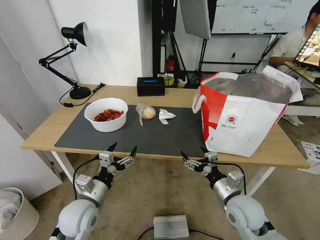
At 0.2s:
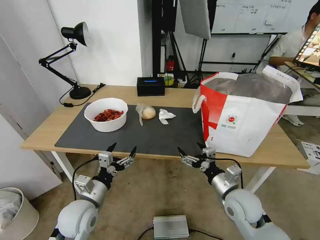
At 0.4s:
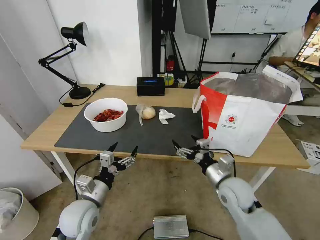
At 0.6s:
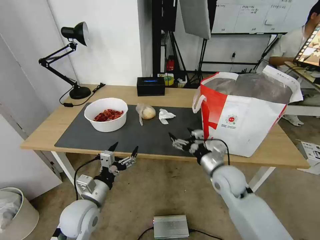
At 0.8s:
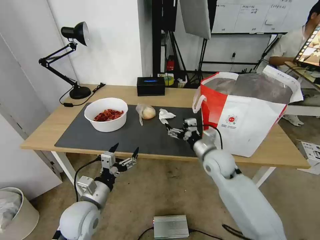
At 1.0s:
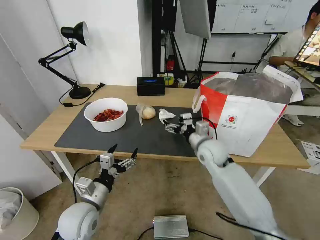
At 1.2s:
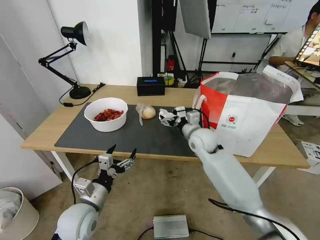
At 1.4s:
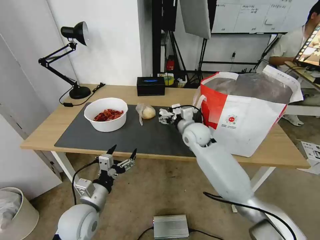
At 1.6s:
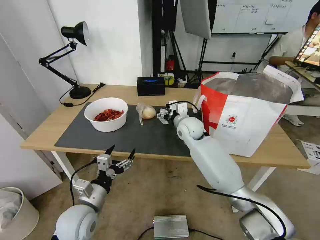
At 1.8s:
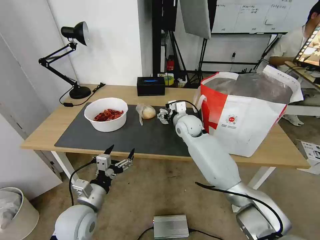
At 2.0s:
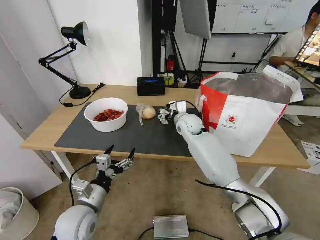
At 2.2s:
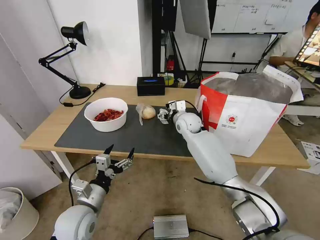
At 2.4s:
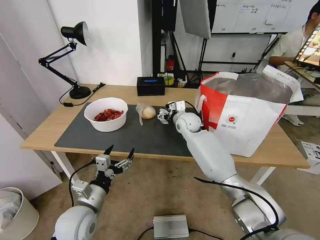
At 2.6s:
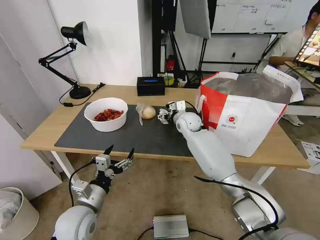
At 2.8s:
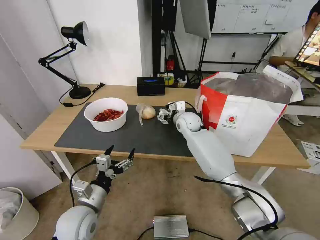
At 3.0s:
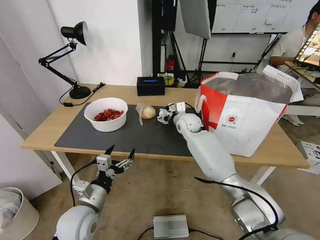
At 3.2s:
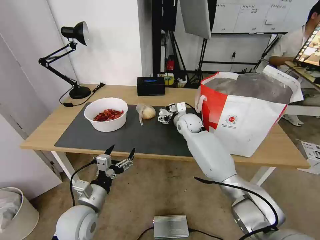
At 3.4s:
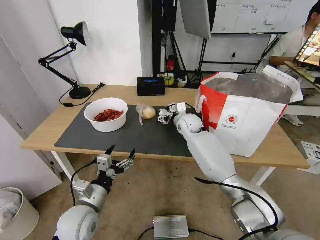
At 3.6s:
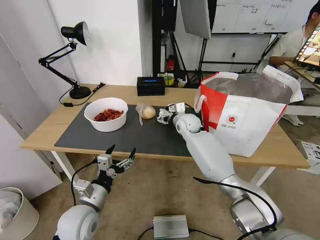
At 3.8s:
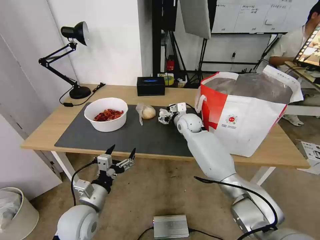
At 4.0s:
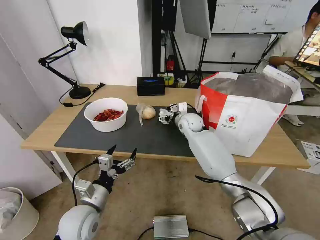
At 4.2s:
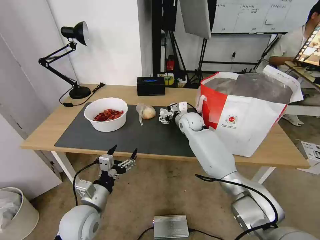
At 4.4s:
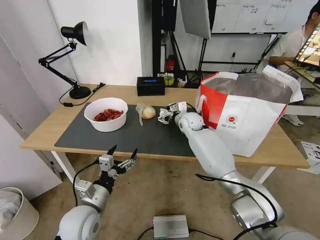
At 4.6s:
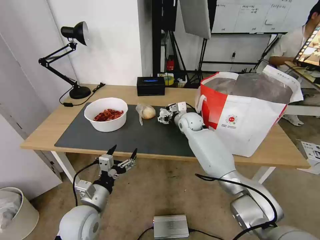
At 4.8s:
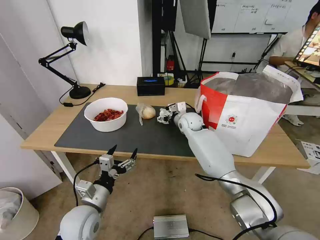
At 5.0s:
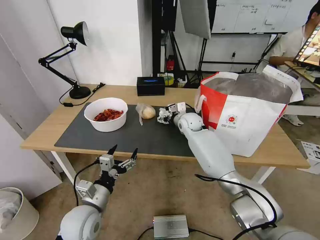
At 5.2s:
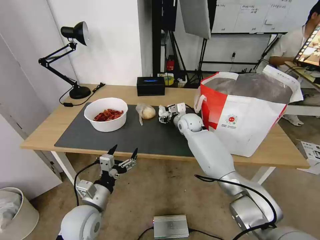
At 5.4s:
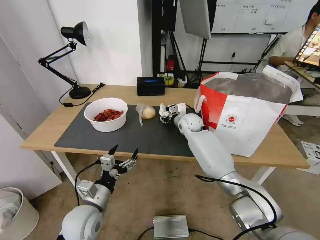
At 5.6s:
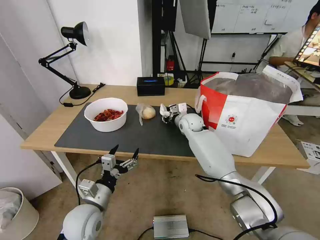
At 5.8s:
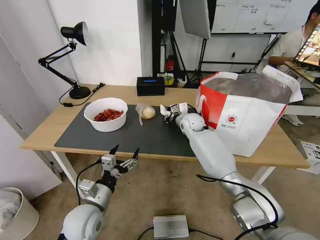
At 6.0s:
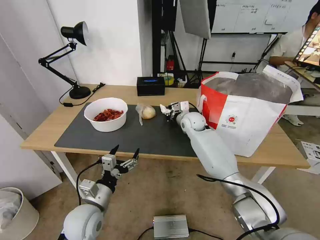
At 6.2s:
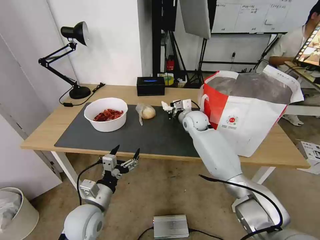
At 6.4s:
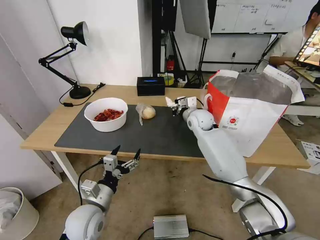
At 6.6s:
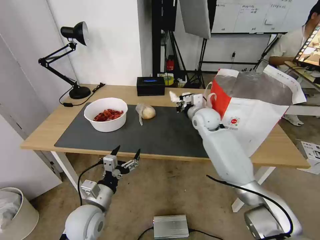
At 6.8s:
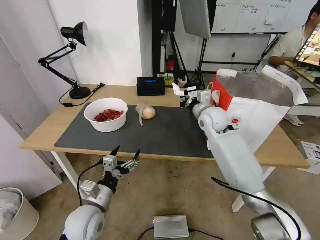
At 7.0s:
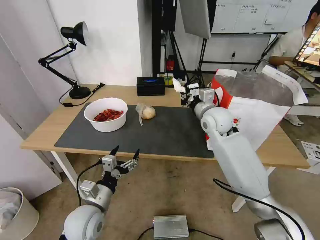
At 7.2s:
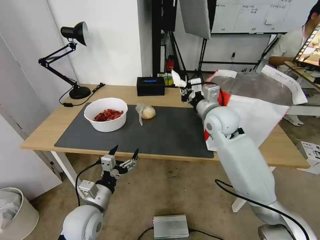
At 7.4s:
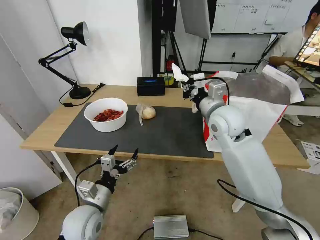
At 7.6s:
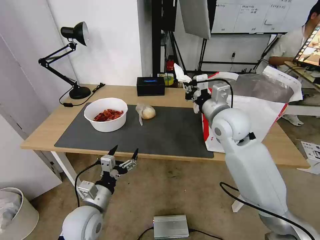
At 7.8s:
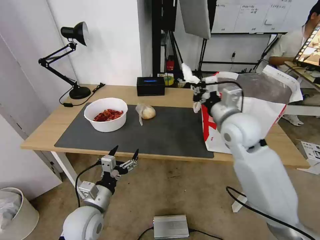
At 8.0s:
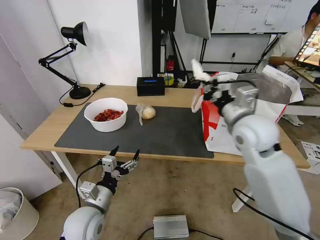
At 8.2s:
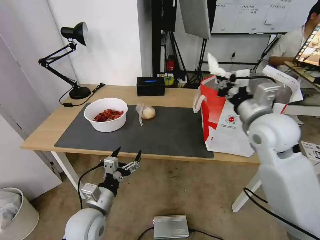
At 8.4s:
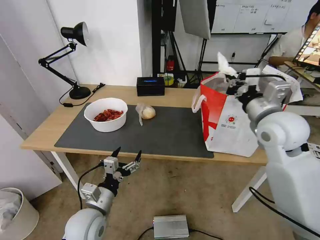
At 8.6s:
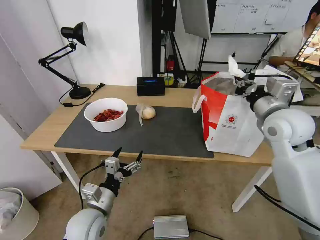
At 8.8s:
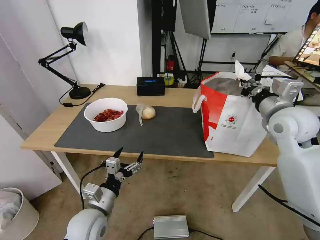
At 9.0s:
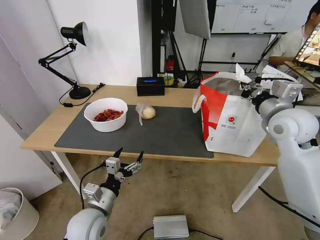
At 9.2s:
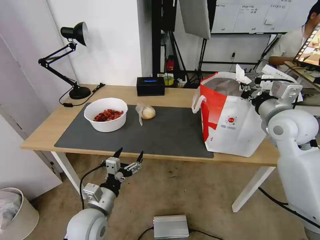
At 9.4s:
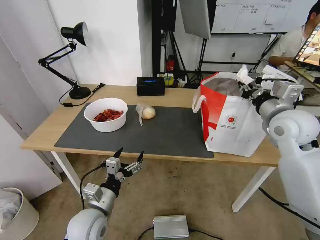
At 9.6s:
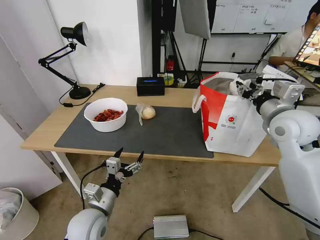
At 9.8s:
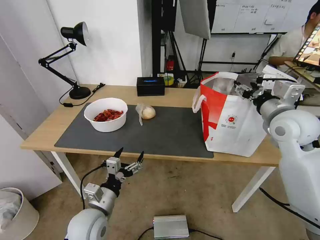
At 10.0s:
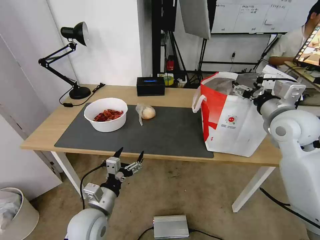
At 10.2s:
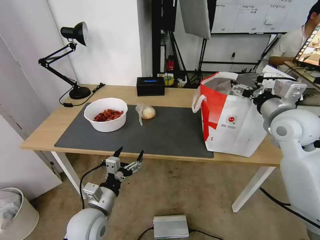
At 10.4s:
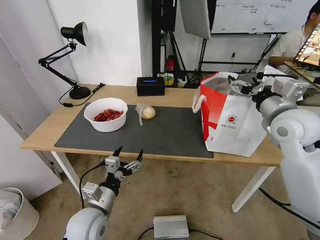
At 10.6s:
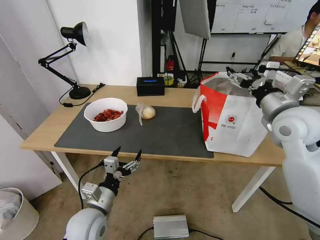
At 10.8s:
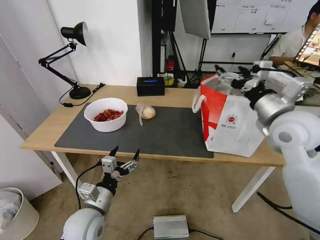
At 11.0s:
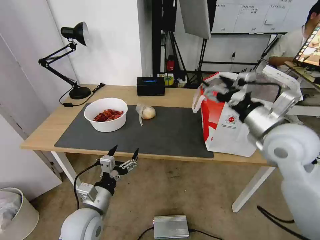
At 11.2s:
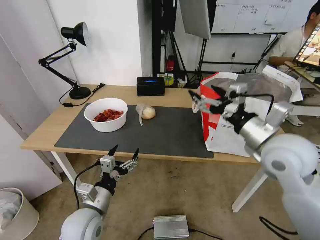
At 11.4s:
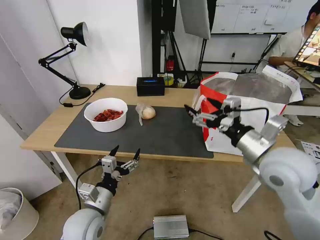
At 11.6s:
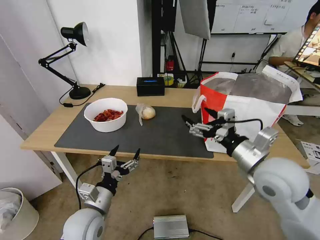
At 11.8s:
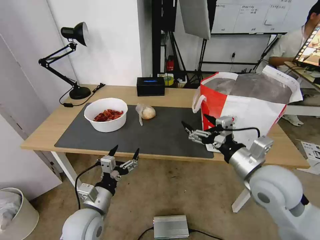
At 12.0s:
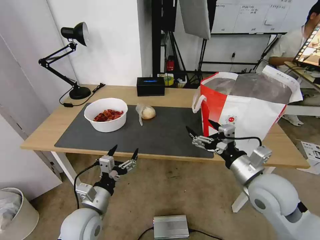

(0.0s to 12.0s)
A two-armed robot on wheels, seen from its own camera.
Task of the whole recording: Pick up the trash from the table and place it into the takeout bag.
0.0s - 1.6s: The right gripper moves forward and to the left, approximately 30 cm.
1.6s - 3.0s: The right gripper moves approximately 5 cm.
3.0s - 4.4s: There are only small adjustments of the grippers.
4.4s - 6.0s: The right gripper closes up.
6.0s - 7.6s: The right gripper heads backward and upward, covering roughly 20 cm.
7.6s - 9.0s: The right gripper is displaced to the right by approximately 15 cm.
9.0s - 10.4s: The right gripper opens its fingers.
10.4s - 12.0s: The right gripper goes roughly 20 cm backward, downward and to the left.

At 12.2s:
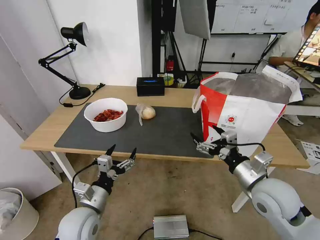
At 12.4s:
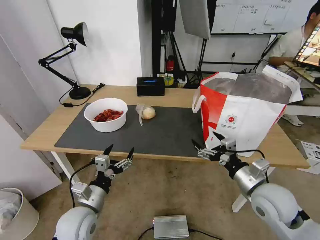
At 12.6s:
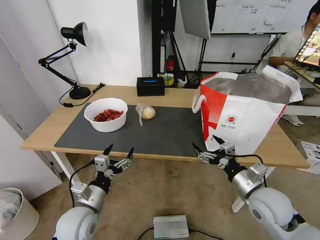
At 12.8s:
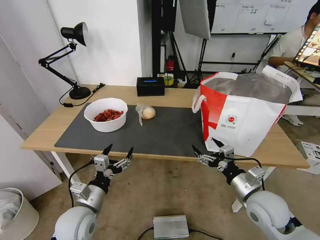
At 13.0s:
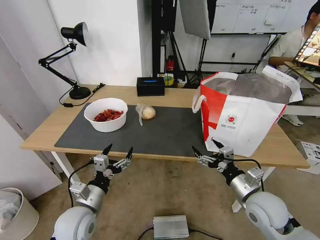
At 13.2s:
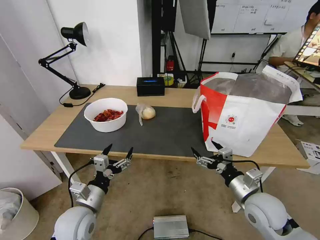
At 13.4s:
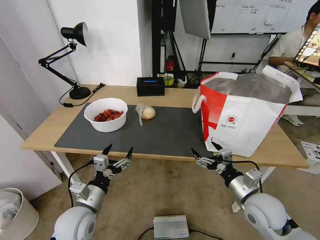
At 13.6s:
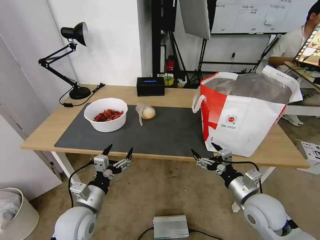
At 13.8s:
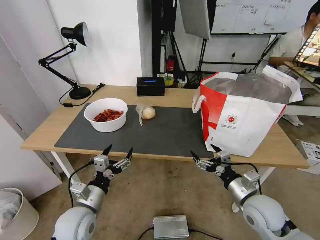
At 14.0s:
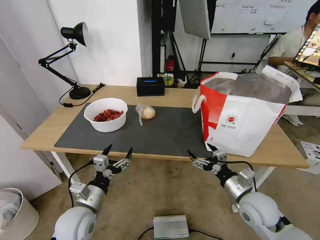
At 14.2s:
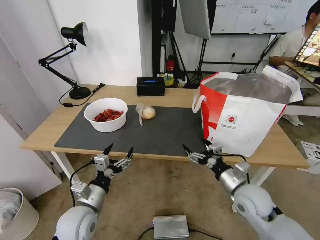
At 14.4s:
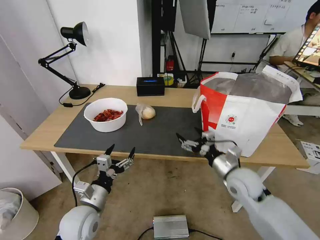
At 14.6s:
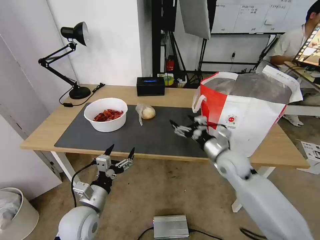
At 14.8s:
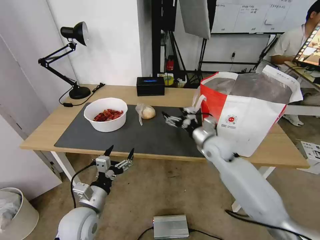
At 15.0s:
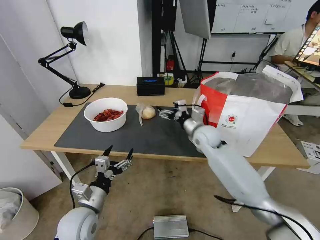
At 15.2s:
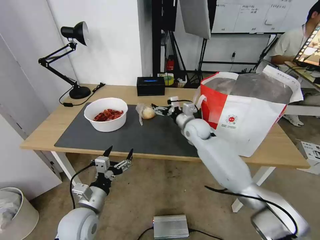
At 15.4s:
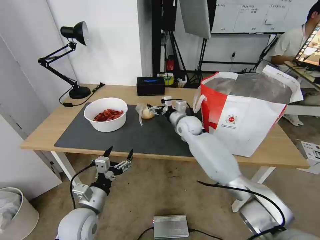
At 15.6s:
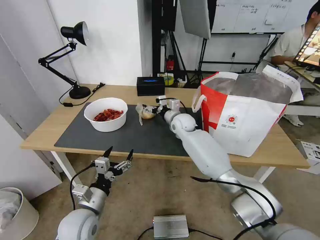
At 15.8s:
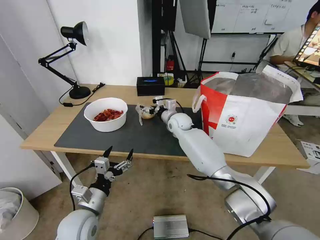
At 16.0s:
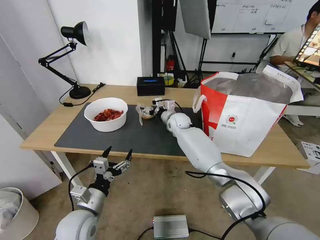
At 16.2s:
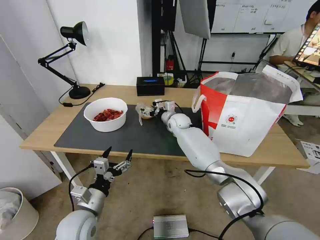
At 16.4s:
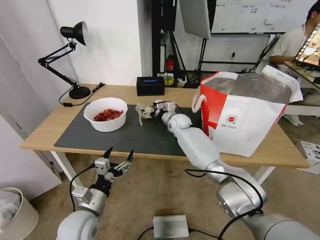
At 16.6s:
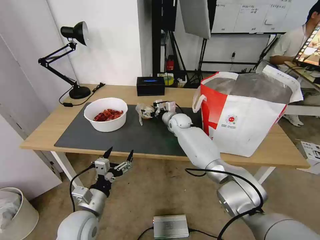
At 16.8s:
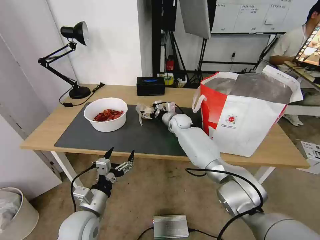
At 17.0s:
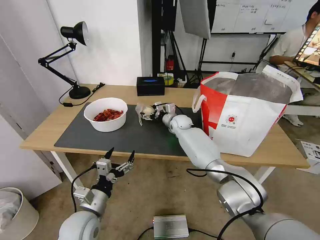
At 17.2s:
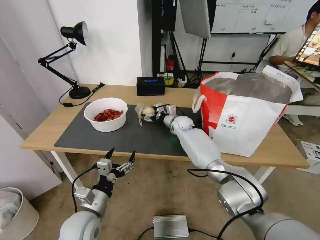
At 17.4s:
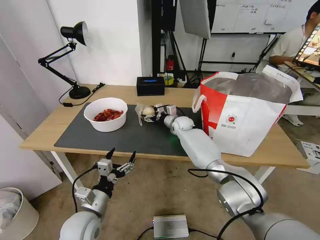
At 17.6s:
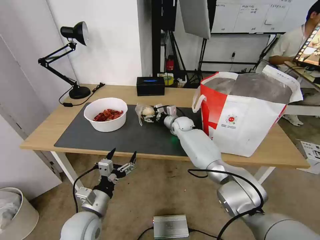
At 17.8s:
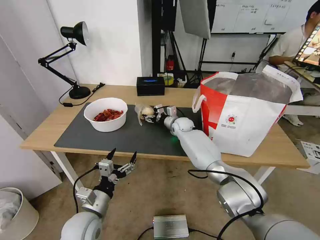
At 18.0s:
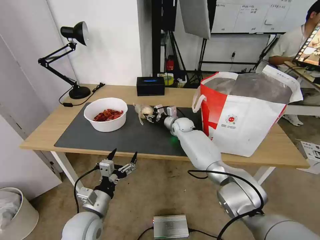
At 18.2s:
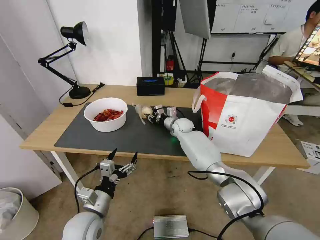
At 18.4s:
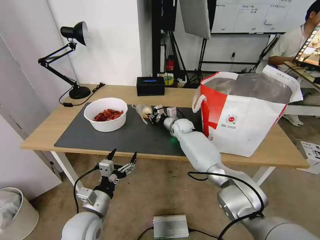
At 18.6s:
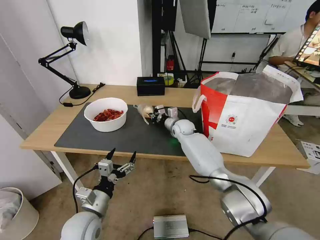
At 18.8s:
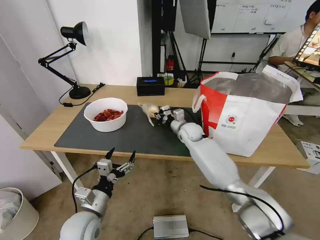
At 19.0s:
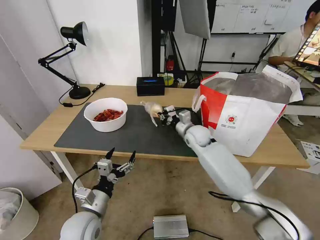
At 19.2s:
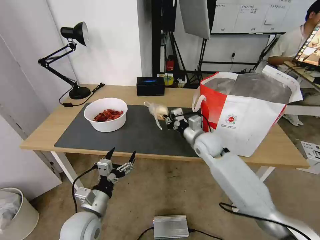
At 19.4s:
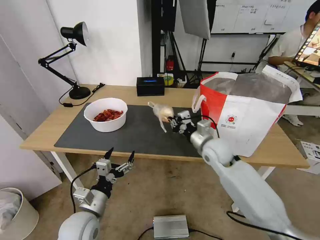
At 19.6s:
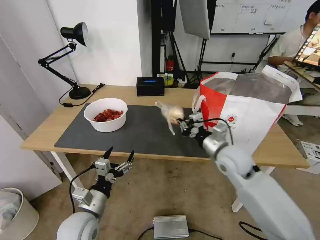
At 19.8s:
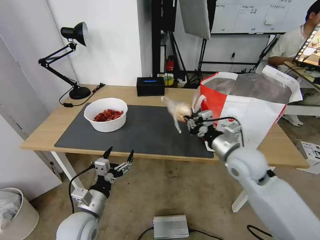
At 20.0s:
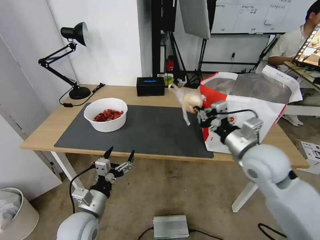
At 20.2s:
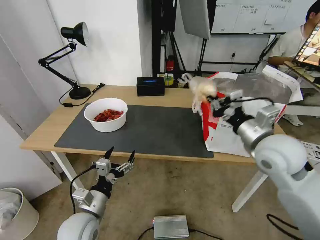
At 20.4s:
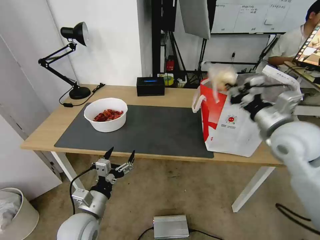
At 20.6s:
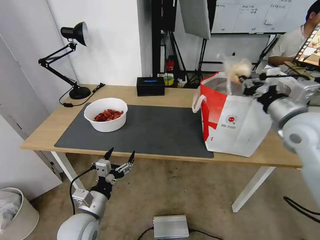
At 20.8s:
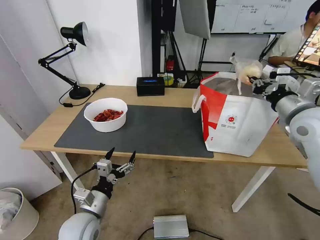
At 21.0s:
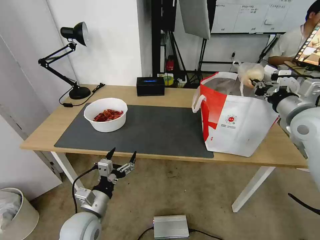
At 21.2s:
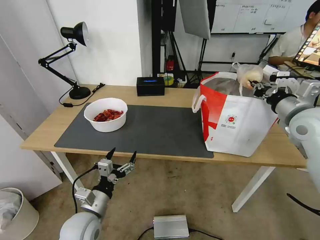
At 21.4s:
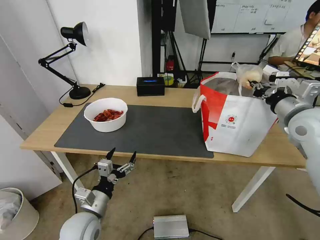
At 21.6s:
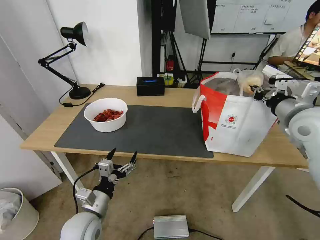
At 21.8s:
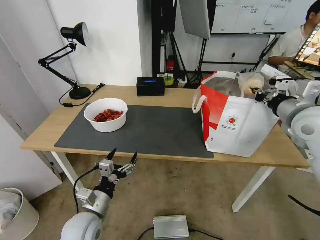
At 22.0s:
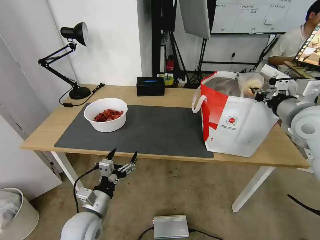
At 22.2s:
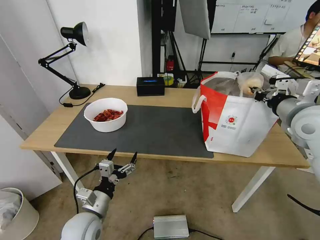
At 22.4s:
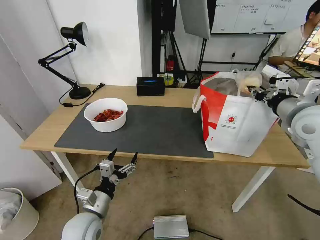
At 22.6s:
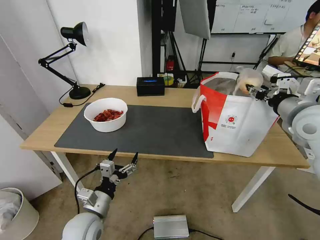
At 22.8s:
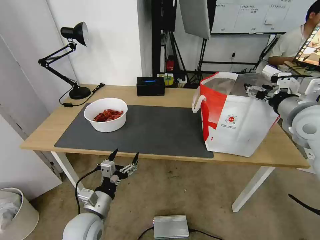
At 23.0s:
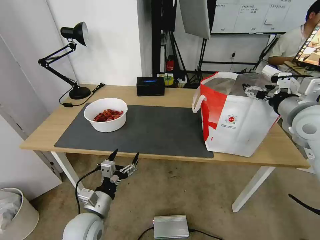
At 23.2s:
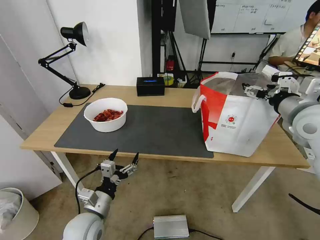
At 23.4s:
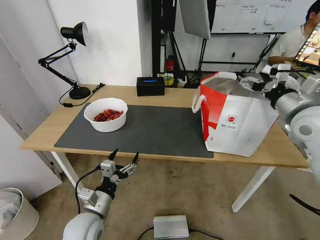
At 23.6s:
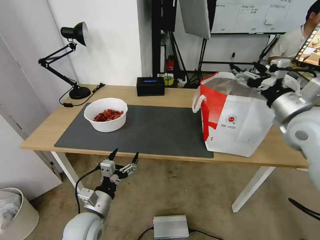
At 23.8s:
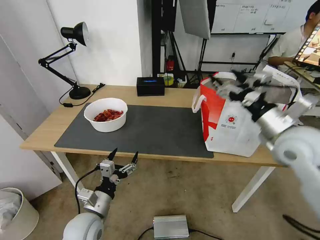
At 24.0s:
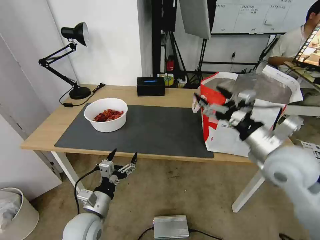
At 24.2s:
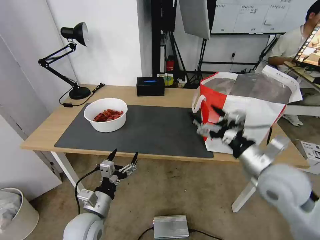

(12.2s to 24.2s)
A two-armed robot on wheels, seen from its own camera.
Task of the whole recording: Pick up the trash from the table and place it into the takeout bag.
12.2s - 13.8s: The right gripper is displaced downward by about 10 cm.
13.8s - 15.2s: The right gripper goes approximately 30 cm forward and to the left.
15.2s - 16.6s: The right gripper moves forward and to the left, about 10 cm.
16.6s - 18.2s: The right gripper closes.
18.2s - 19.8s: The right gripper goes roughly 35 cm backward, to the right and upward.
19.8s - 21.2s: The right gripper shifts about 20 cm to the right and upward.
21.2s - 22.6s: The right gripper opens its fingers.
22.6s - 24.2s: The right gripper shifts about 20 cm downward, backward and to the left, and opens.
